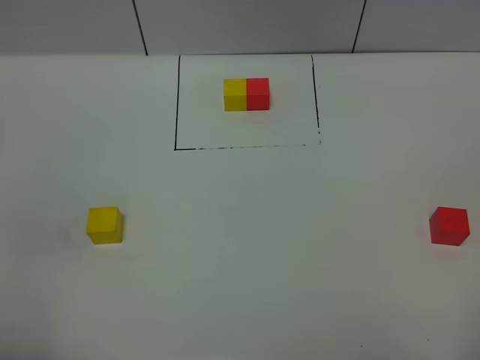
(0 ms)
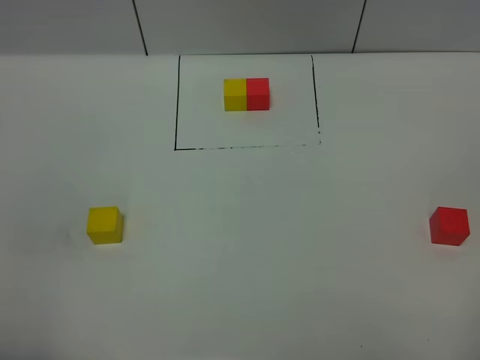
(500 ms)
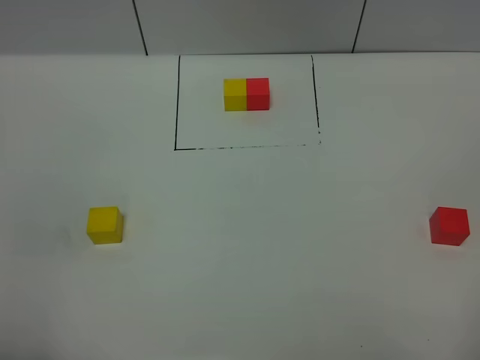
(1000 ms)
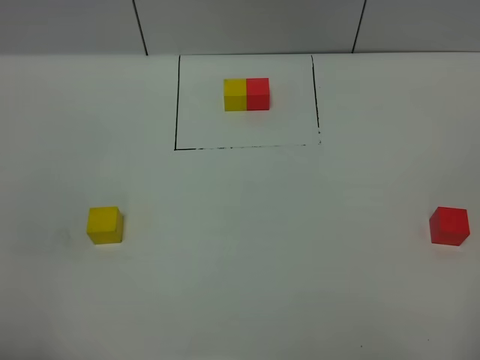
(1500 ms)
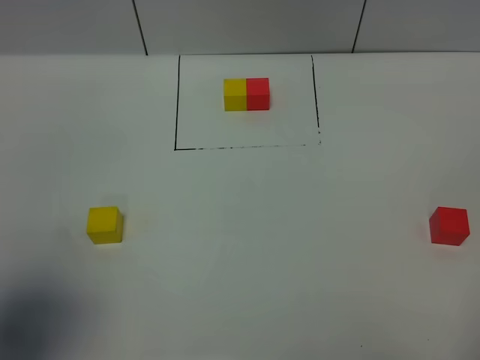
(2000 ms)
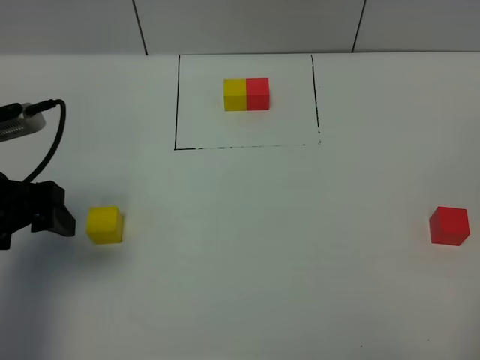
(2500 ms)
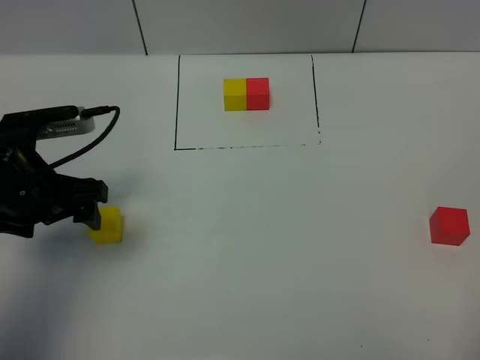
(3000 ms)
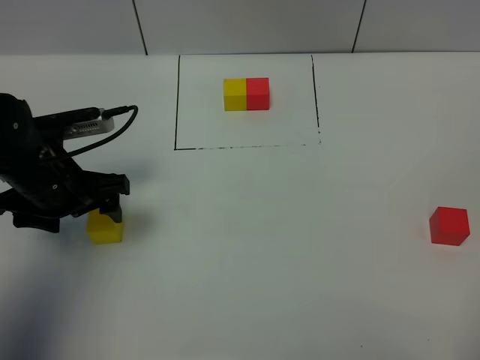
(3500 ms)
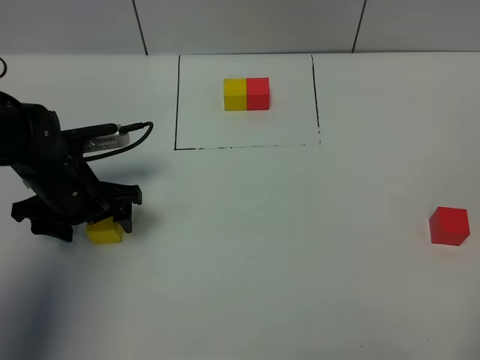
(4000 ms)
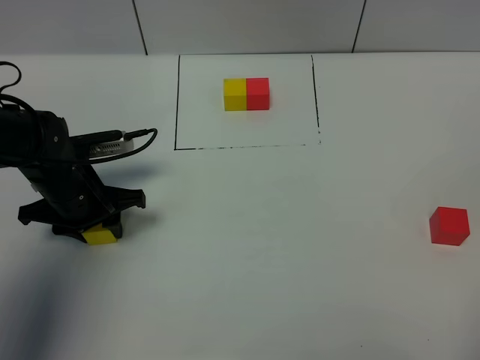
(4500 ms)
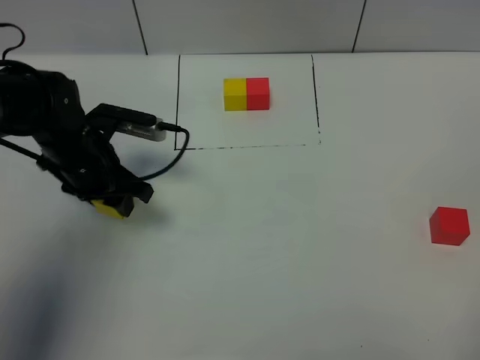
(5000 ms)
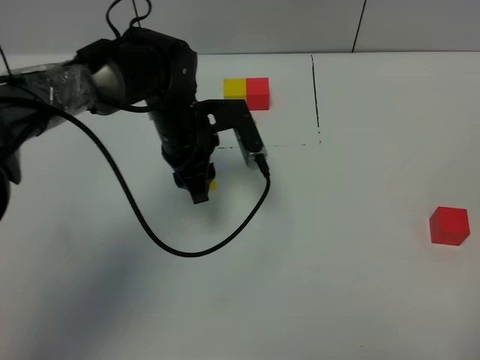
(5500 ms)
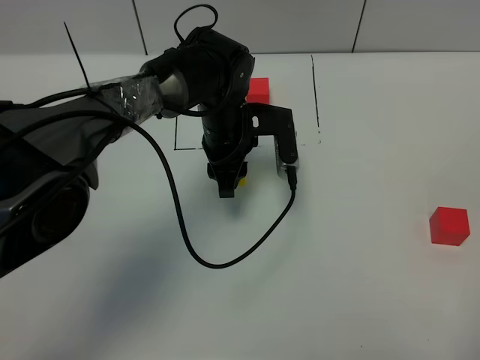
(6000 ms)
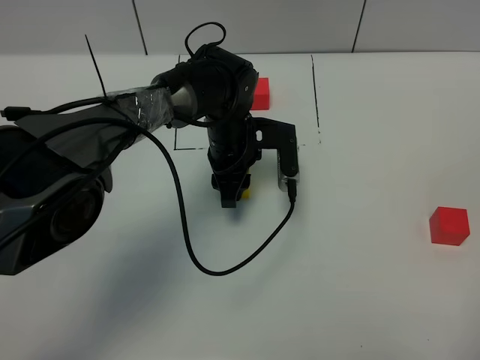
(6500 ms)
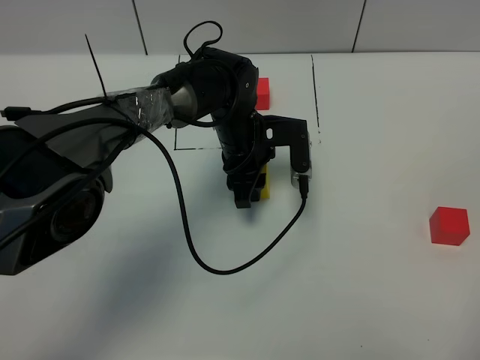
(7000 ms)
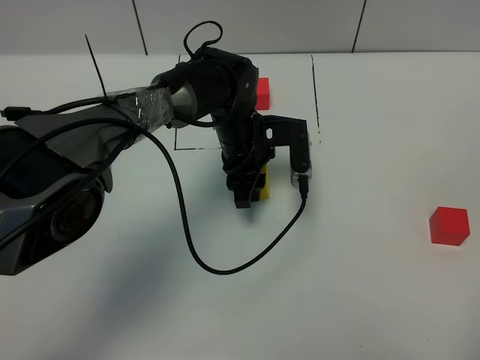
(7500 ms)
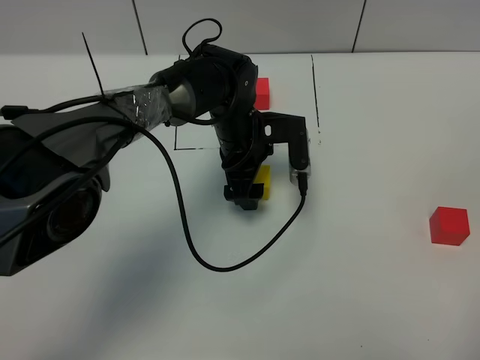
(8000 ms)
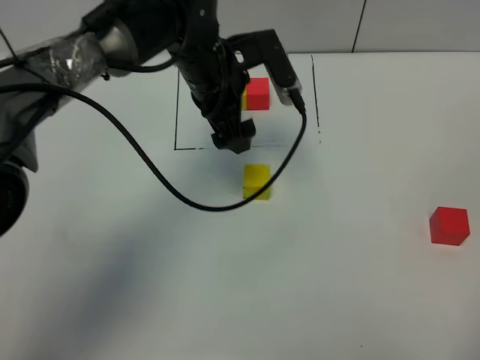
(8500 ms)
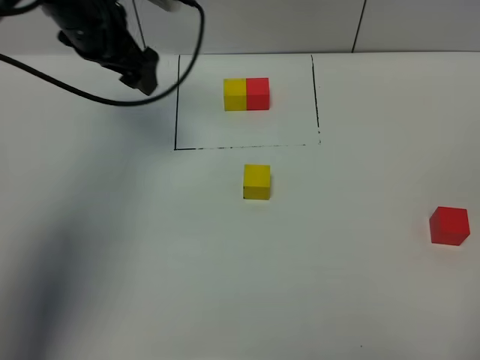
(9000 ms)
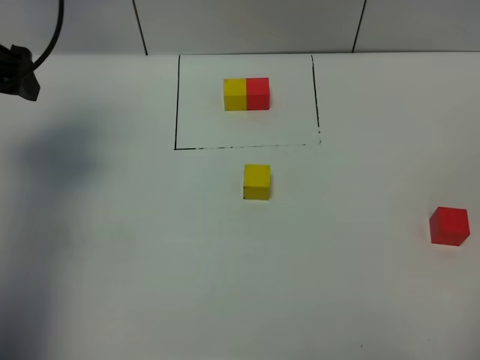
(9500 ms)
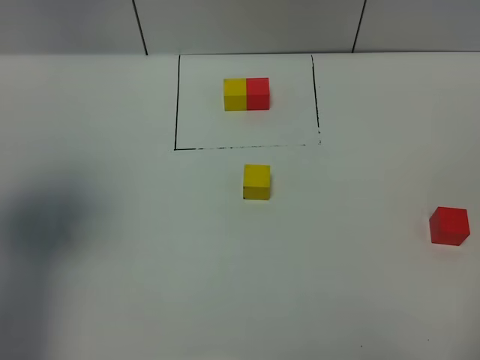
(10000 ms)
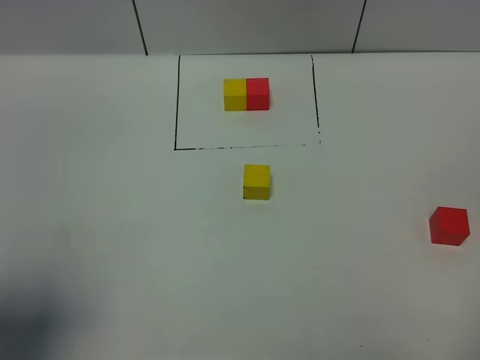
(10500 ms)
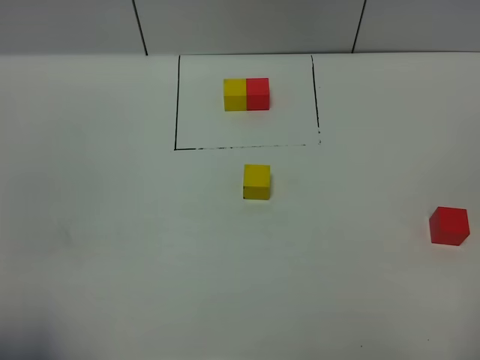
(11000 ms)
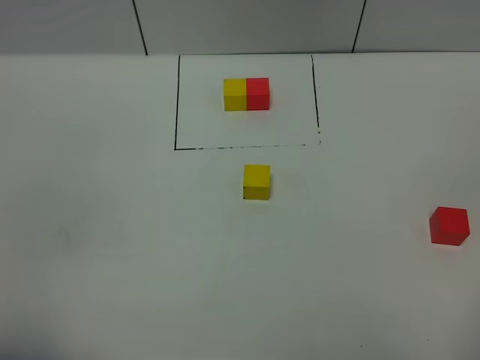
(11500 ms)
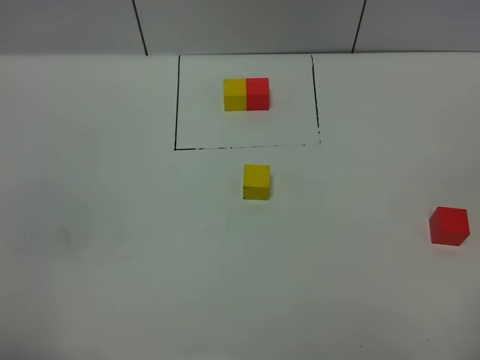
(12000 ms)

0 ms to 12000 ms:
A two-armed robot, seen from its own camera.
Task of the whole recording: According to the building block template in front, assemble the scattered blocks together.
Step, 2000 ms to 8000 ms: Put the yellow cube in the center of the table.
0 ms to 2000 ms: The left gripper heads forward, covering approximately 10 cm.
2000 ms to 4000 ms: The left gripper travels forward and downward by about 25 cm.
4000 ms to 6000 ms: The left gripper heads to the right and forward, covering some 20 cm, and closes its fingers.
6000 ms to 8000 ms: The left gripper opens up.
8000 ms to 10000 ms: The left gripper goes about 40 cm to the left, upward and backward.
10000 ms to 12000 ms: The left gripper heads backward, covering about 20 cm.

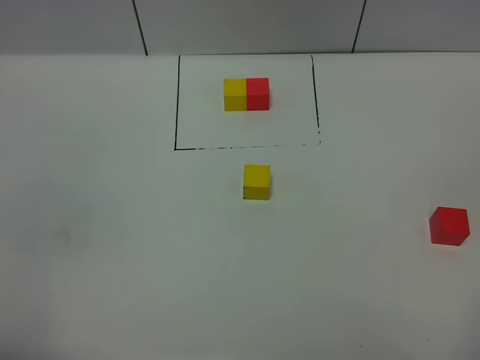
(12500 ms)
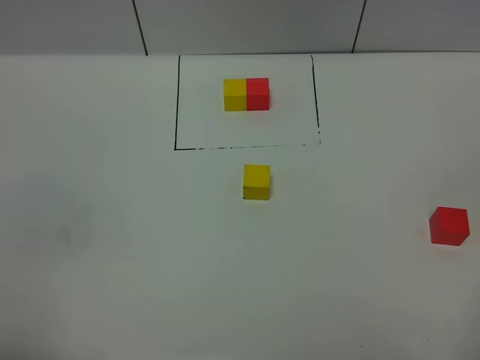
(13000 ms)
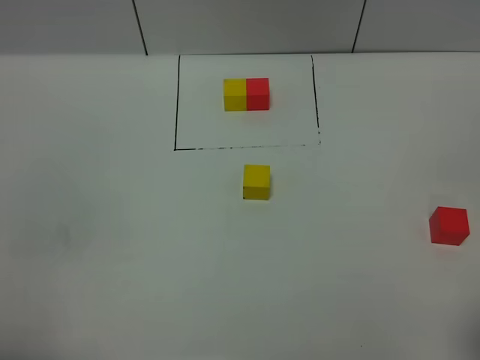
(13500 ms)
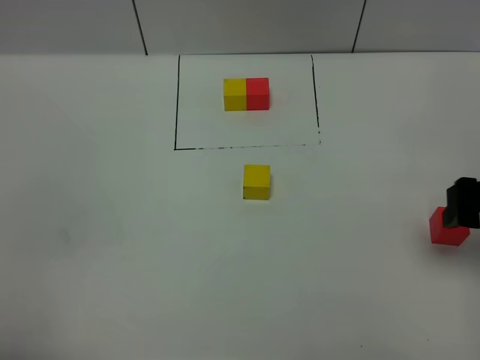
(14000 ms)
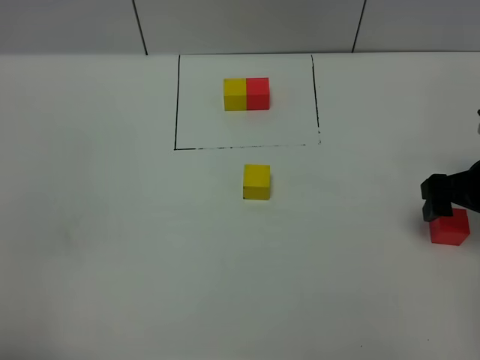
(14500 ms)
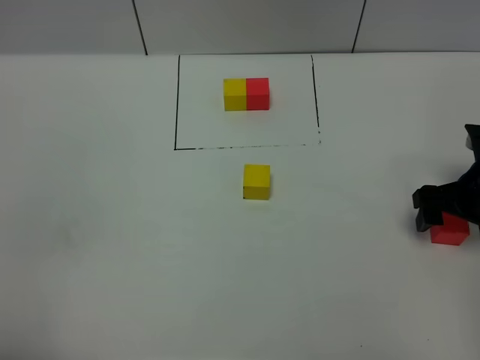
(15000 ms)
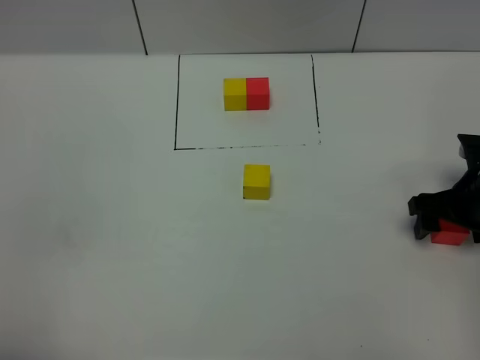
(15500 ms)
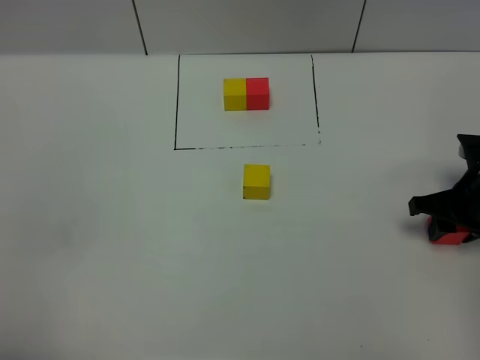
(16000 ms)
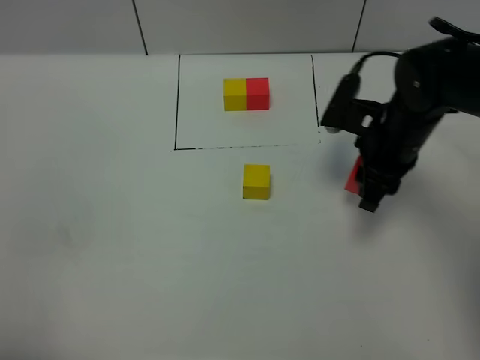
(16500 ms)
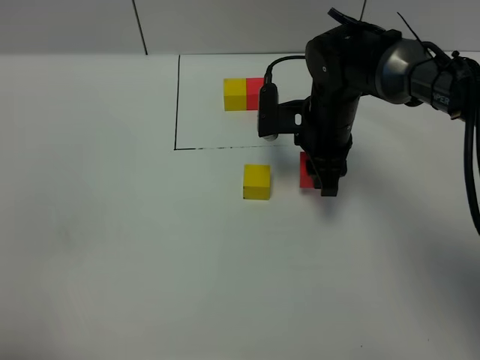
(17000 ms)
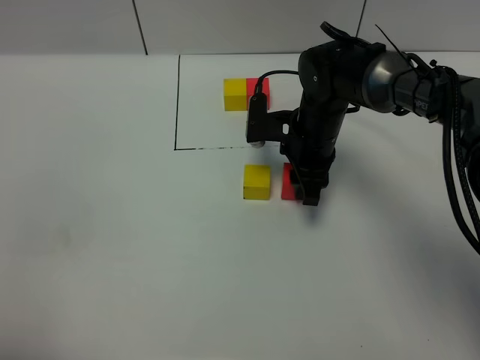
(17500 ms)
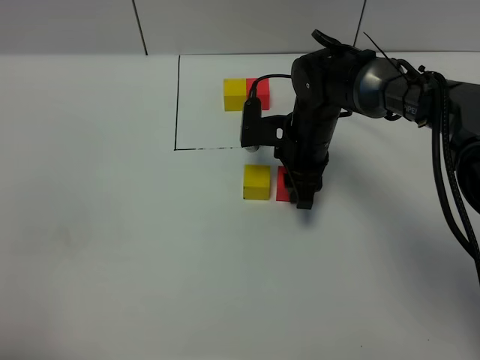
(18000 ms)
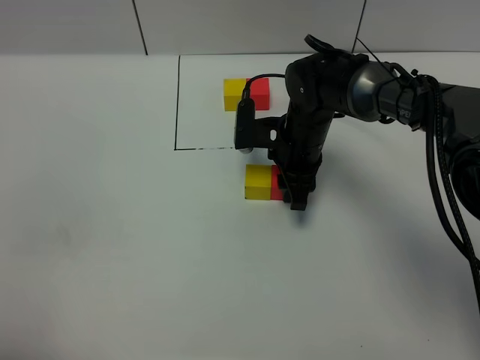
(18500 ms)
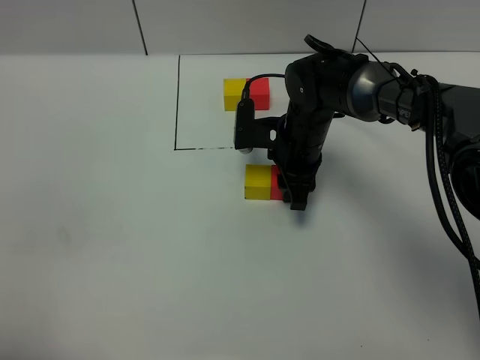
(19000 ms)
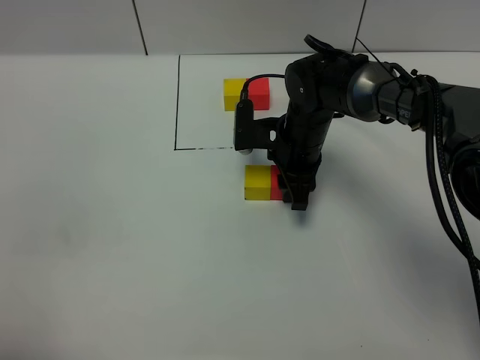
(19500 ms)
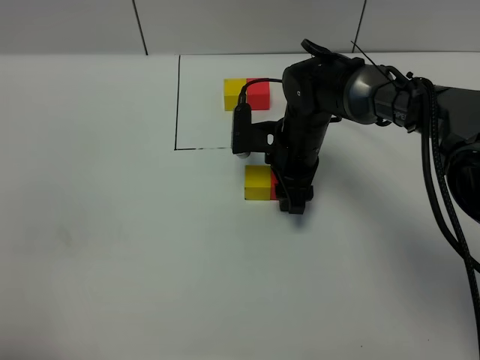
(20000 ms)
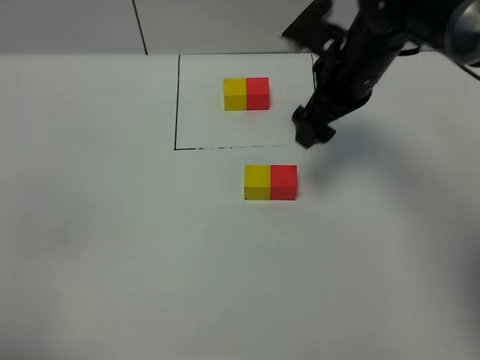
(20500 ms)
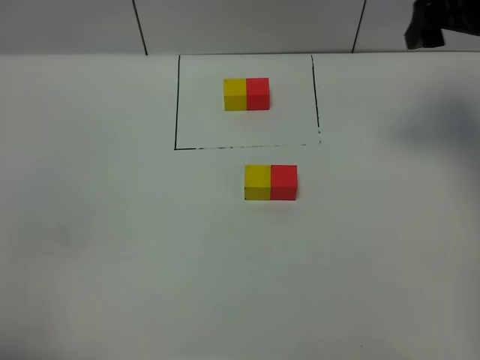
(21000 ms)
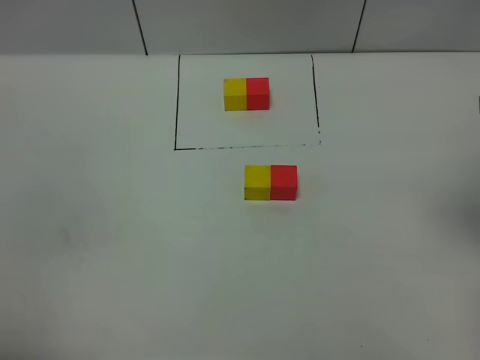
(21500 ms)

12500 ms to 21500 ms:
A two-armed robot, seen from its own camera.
Task of the whole recording: According to the building block template in front, assemble the scattered blocks together.
Step, 12500 ms to 20000 ms: Put the red cube on the right of the yellow cube.
12500 ms to 14500 ms: The right gripper goes approximately 30 cm forward.
14500 ms to 17000 ms: The right gripper moves to the left and forward, roughly 20 cm, and closes its fingers.
17000 ms to 19500 ms: There are only small adjustments of the grippers.
19500 ms to 21500 ms: The right gripper is displaced upward, to the right and backward by approximately 35 cm, and opens its fingers.

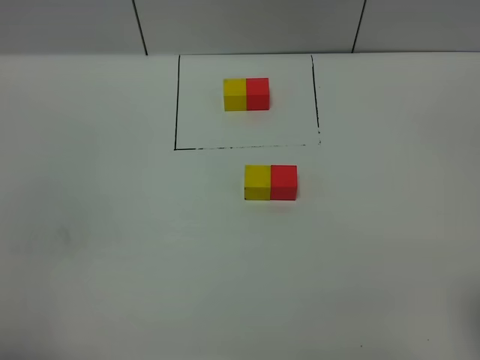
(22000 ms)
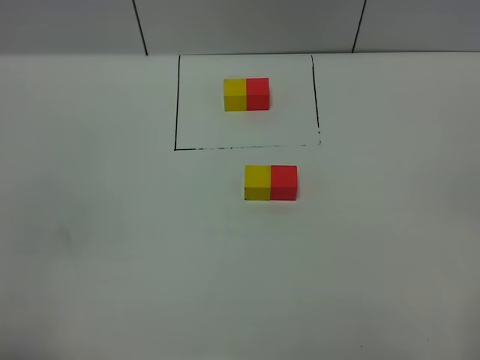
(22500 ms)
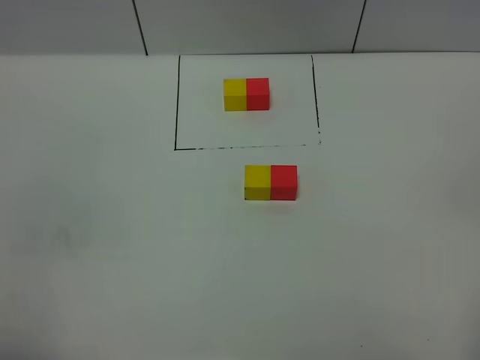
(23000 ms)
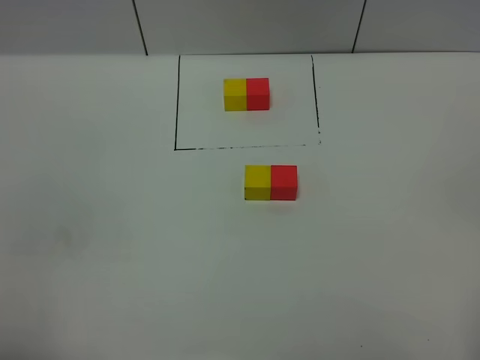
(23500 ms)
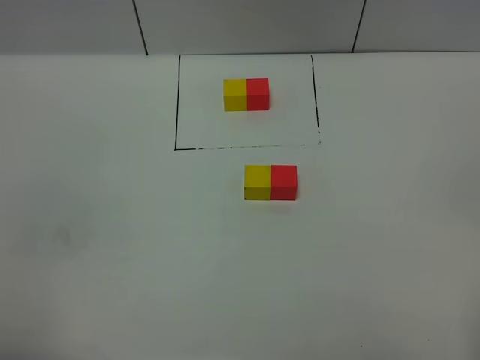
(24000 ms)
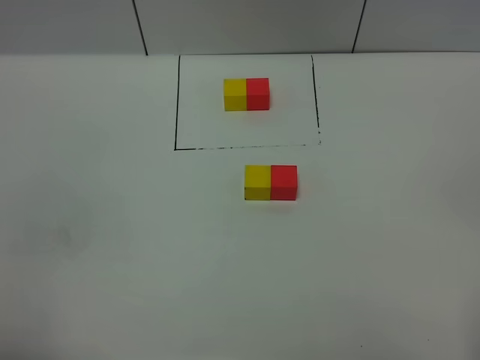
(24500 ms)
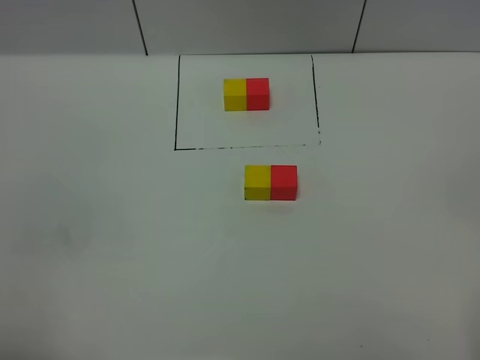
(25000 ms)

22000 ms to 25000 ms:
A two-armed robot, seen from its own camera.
Task of the whole recording: According to the building block template in front, assemble the scattered blocks together.
23500 ms to 25000 ms: Neither gripper changes place.
